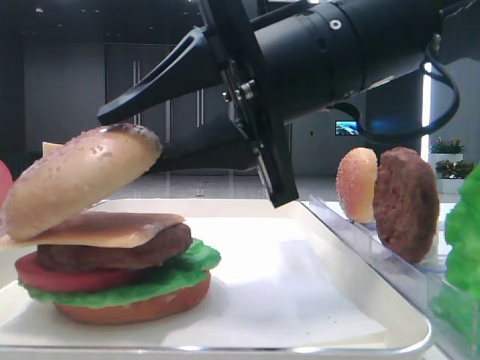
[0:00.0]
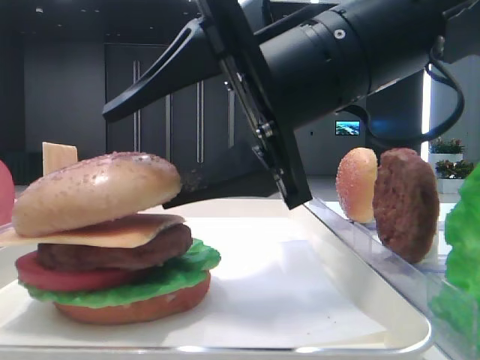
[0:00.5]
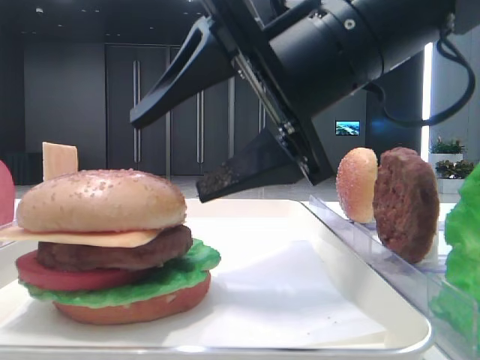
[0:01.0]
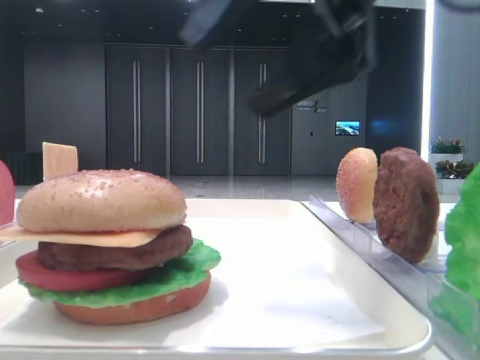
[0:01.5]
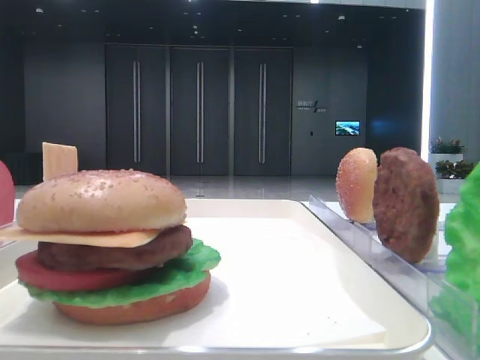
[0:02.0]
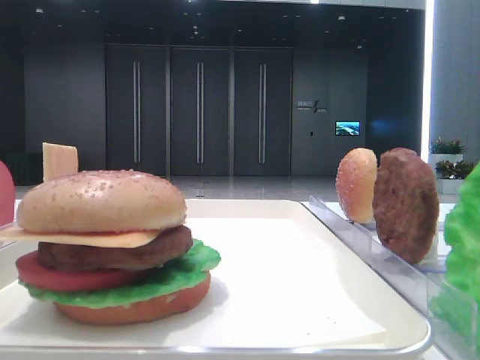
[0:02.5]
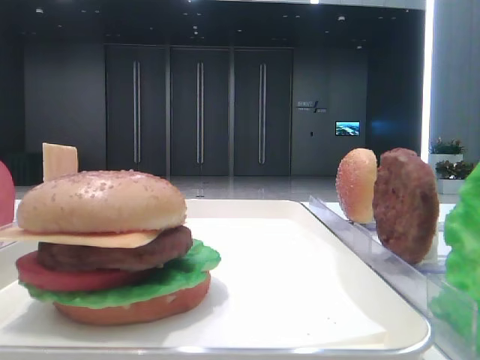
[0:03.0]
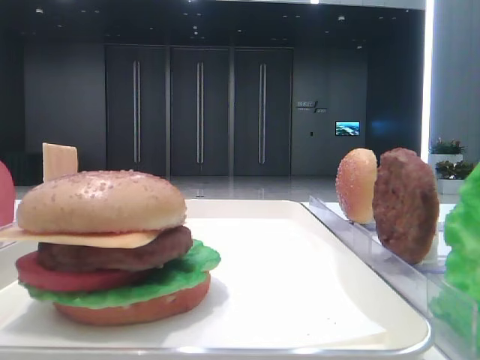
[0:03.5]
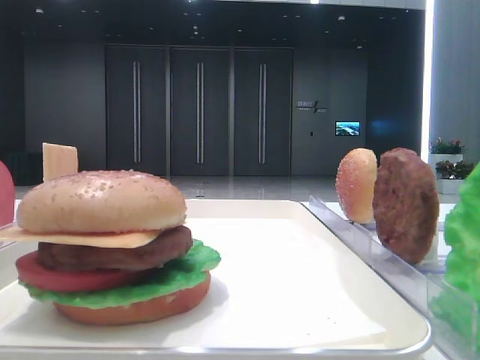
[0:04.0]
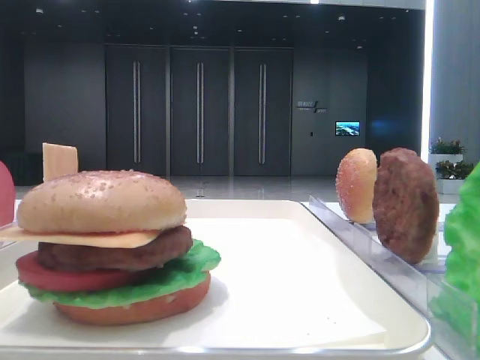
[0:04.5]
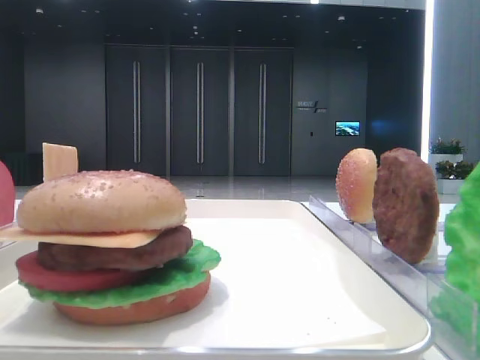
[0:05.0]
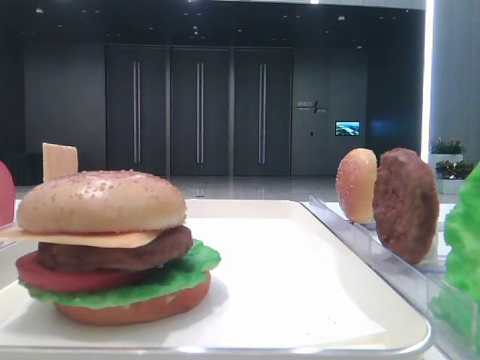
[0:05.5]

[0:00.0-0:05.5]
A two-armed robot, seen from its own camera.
0:00.0 to 0:02.0: The right gripper shifts approximately 25 cm to the right and upward, and opens up.
0:03.5 to 0:05.5: Both grippers stay about where they are.

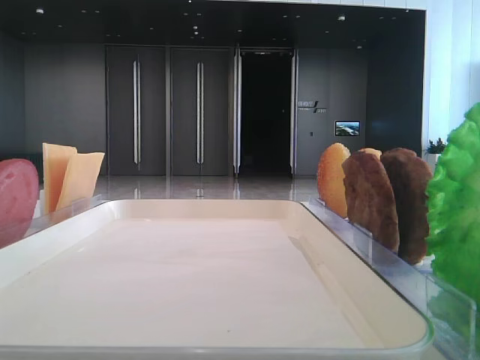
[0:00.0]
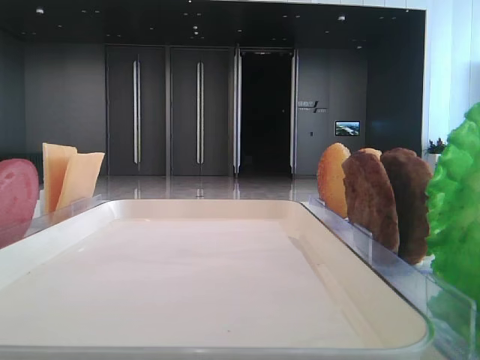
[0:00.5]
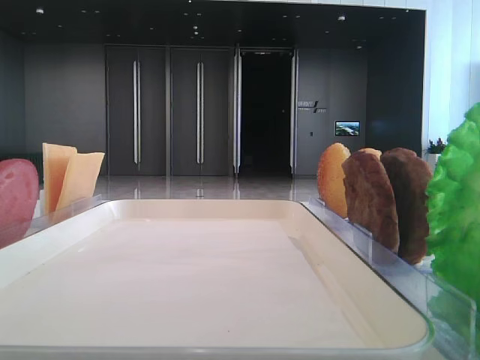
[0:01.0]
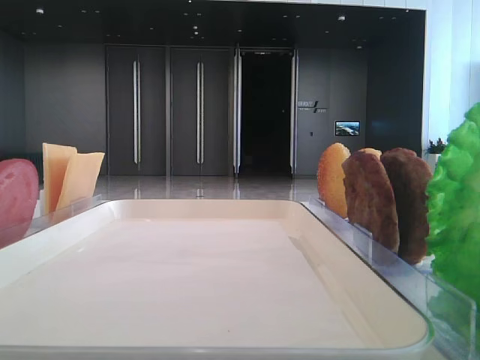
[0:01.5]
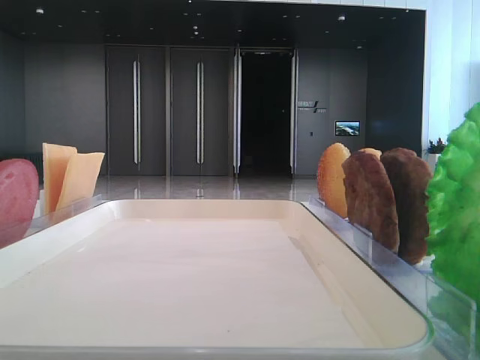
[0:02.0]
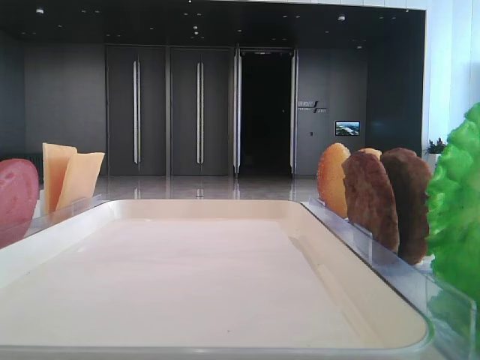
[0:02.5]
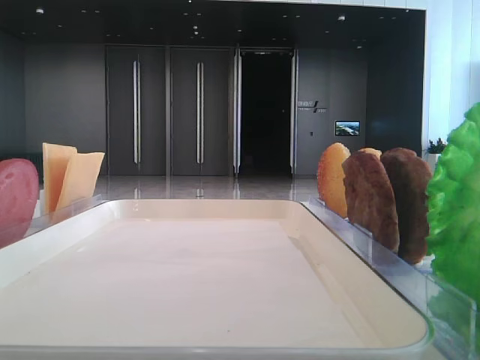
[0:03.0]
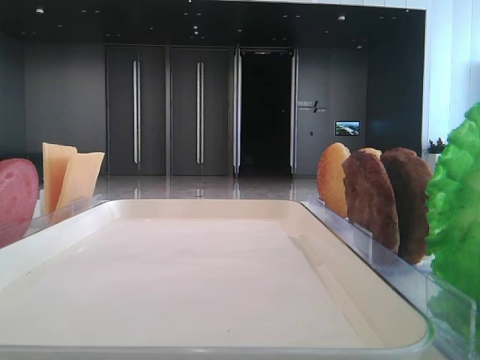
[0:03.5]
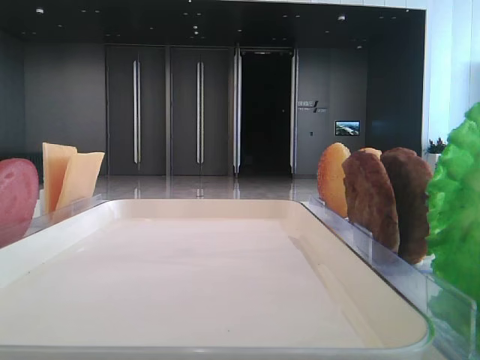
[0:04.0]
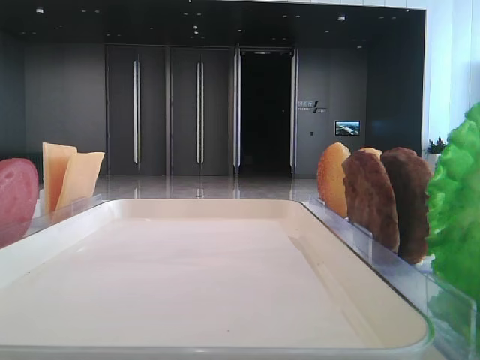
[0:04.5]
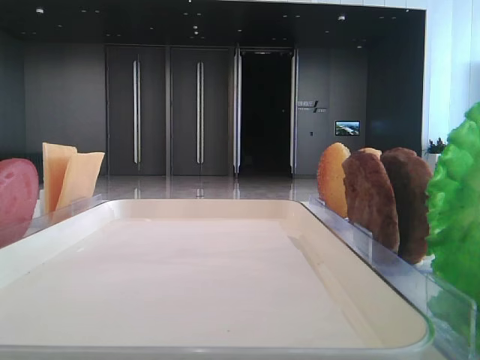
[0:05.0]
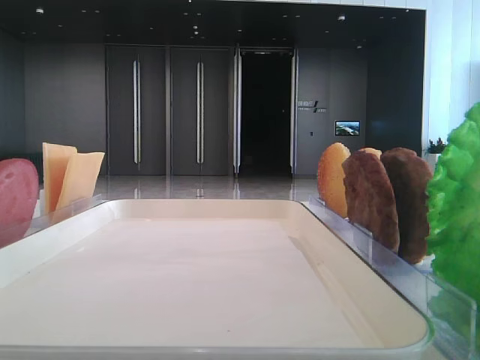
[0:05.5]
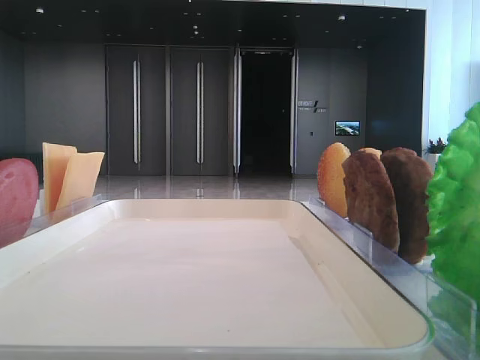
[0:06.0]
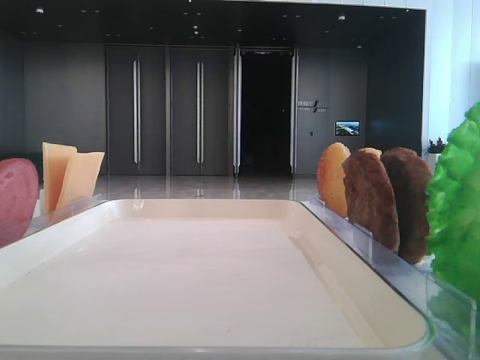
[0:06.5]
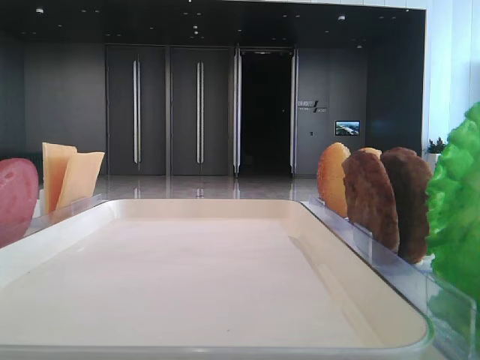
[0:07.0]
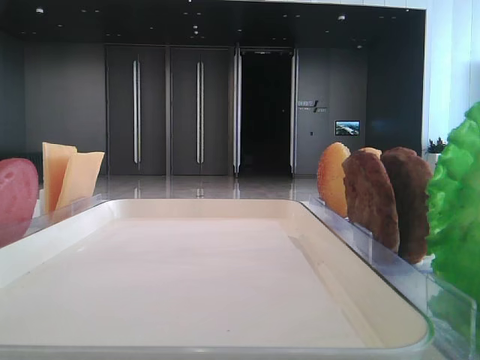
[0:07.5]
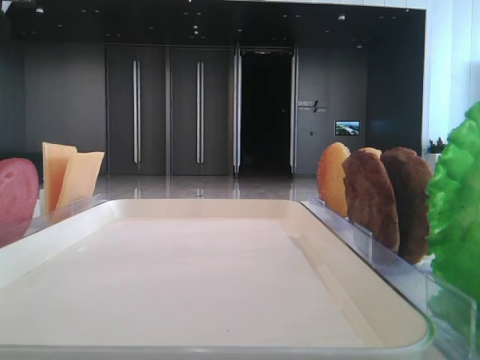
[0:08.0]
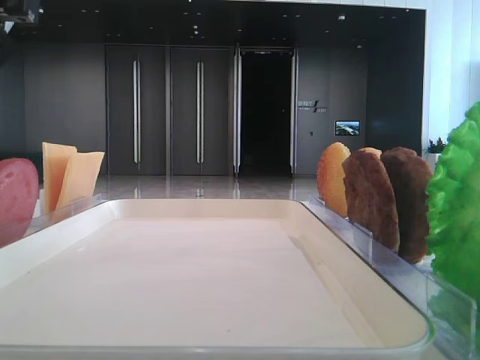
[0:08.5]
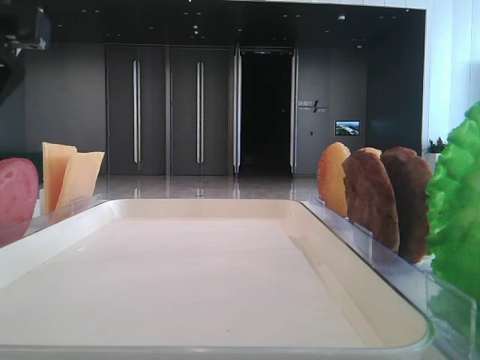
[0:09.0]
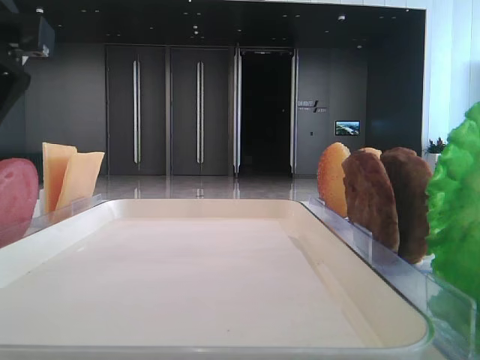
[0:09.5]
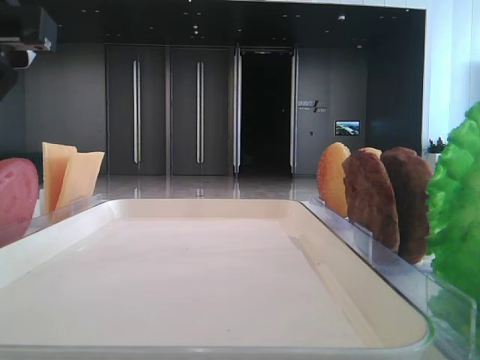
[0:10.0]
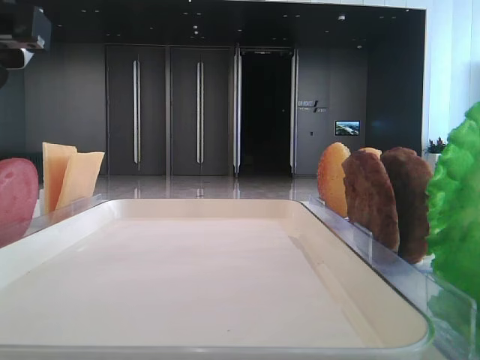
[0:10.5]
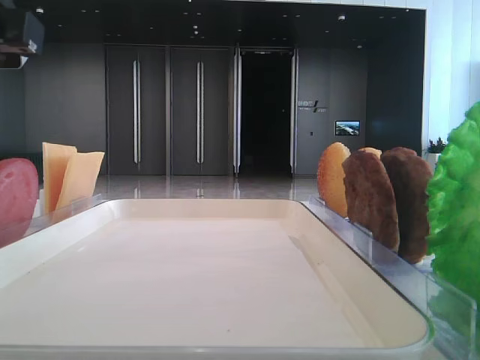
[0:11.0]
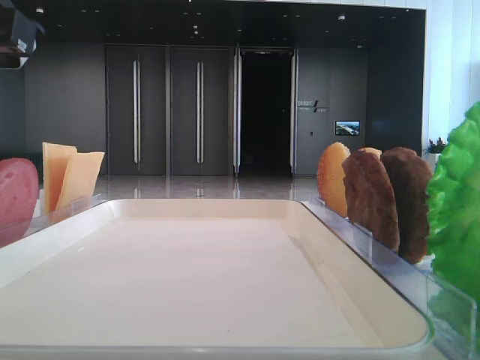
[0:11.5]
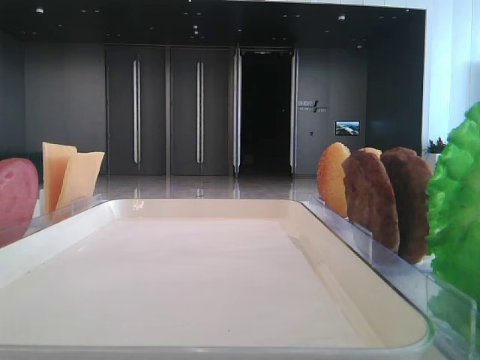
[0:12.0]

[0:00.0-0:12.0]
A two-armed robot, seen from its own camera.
0:08.0 to 0:10.0: The left gripper closes its fingers.
0:10.0 to 0:12.0: The left gripper changes place by some 5 cm, and closes up.

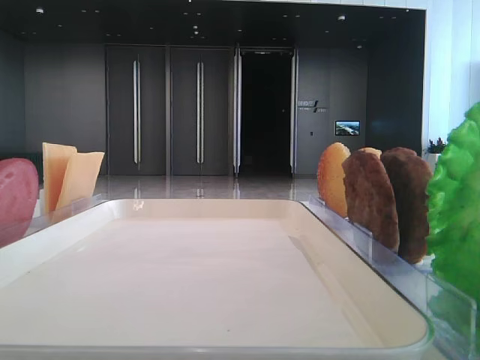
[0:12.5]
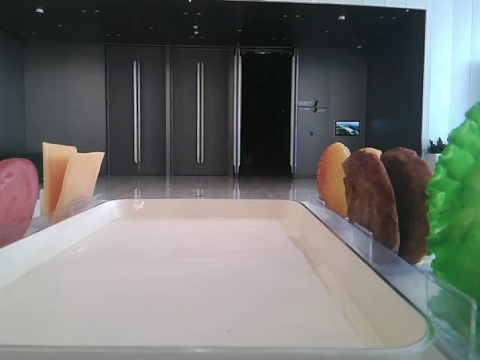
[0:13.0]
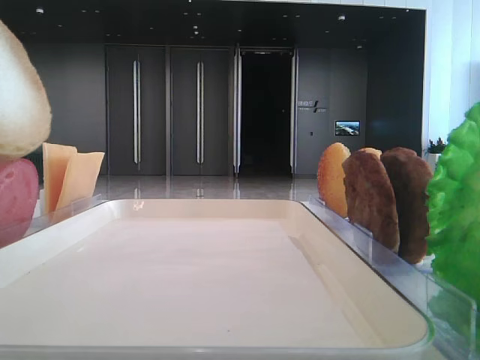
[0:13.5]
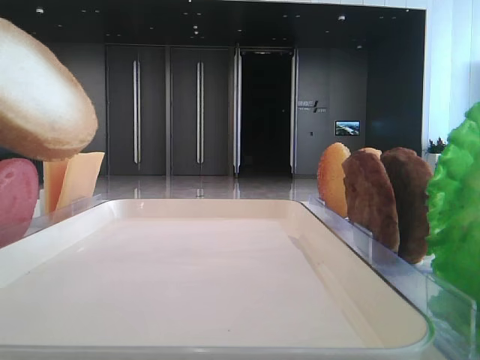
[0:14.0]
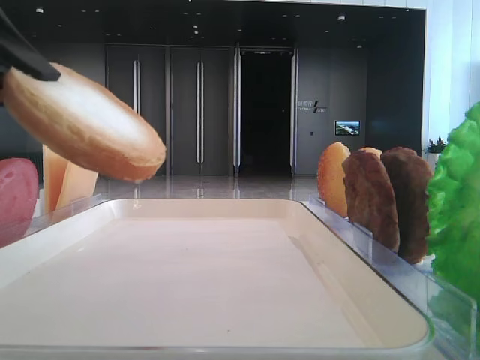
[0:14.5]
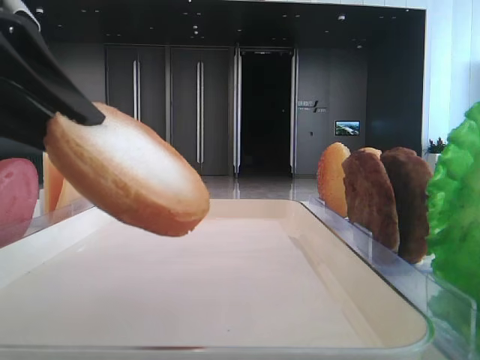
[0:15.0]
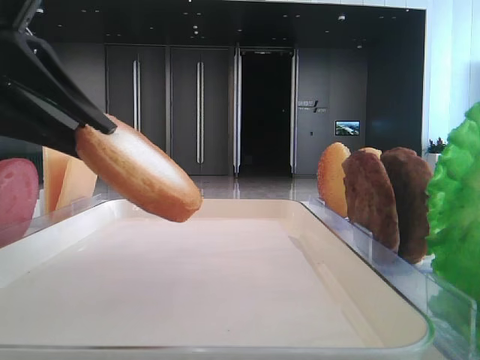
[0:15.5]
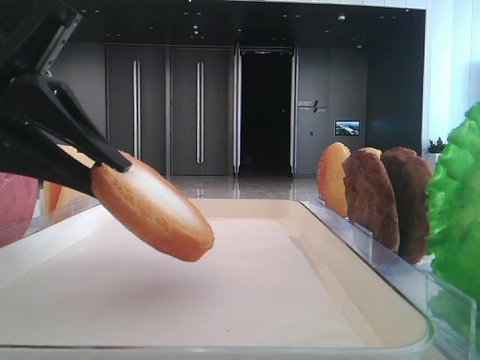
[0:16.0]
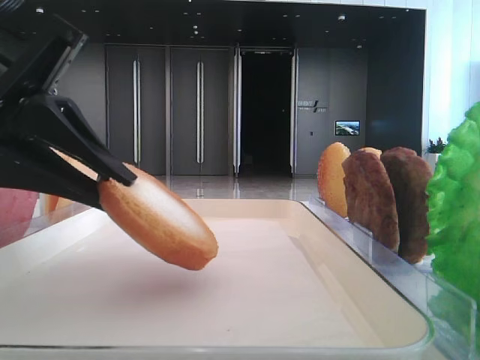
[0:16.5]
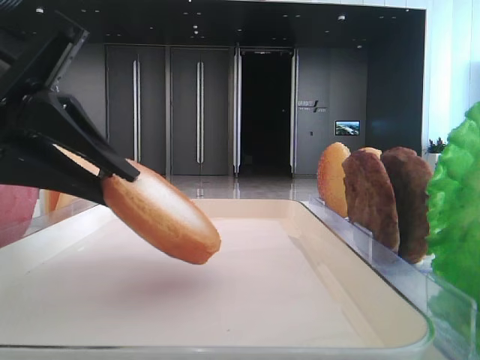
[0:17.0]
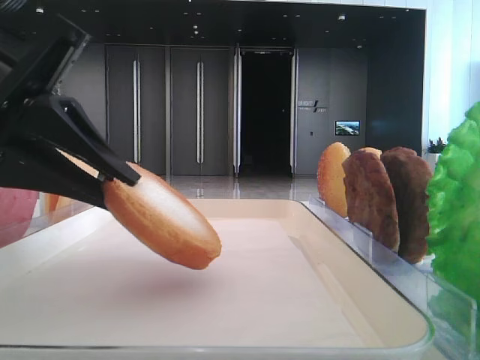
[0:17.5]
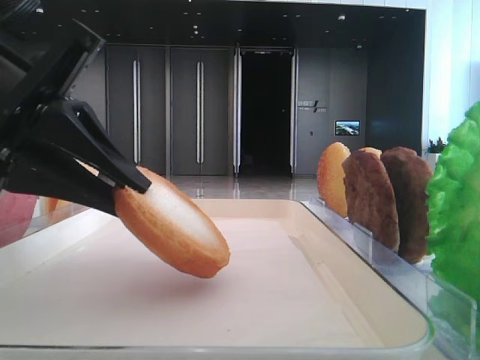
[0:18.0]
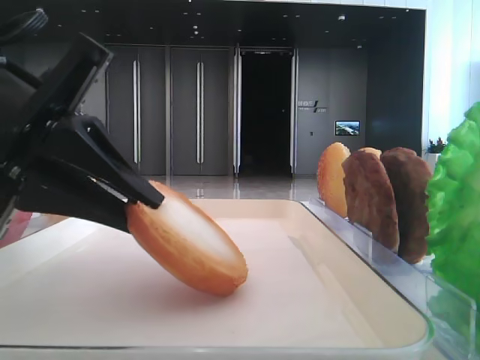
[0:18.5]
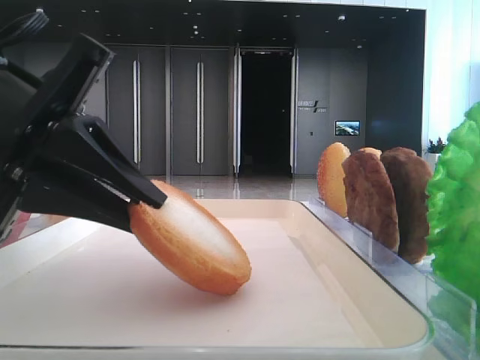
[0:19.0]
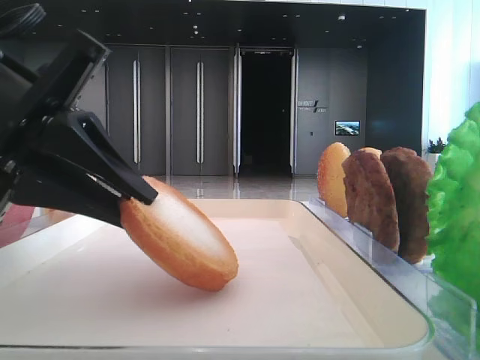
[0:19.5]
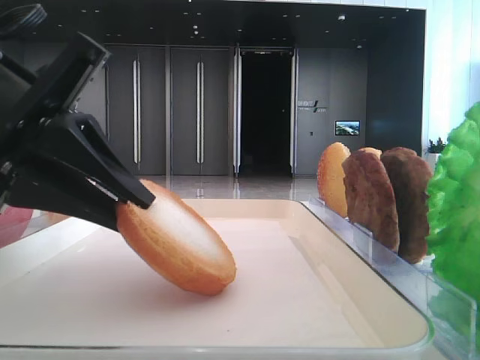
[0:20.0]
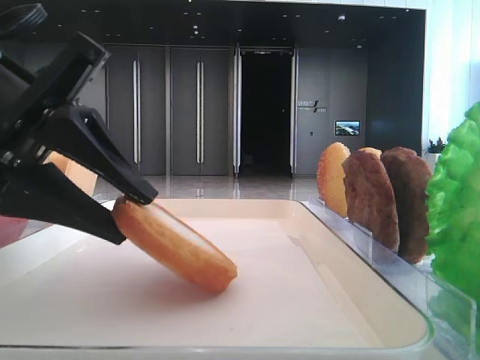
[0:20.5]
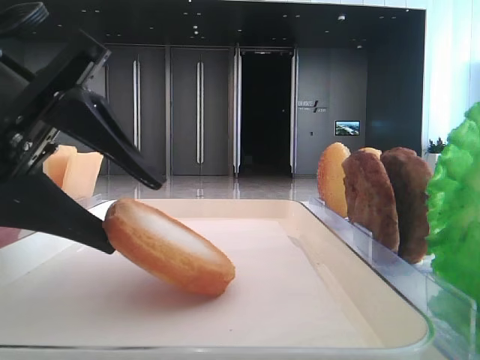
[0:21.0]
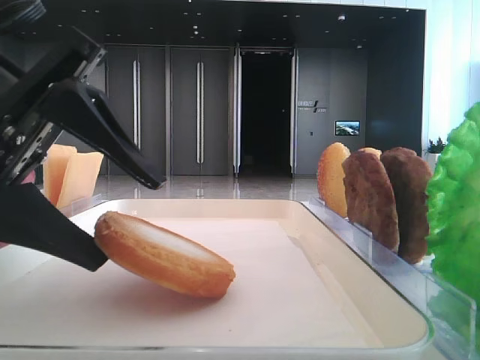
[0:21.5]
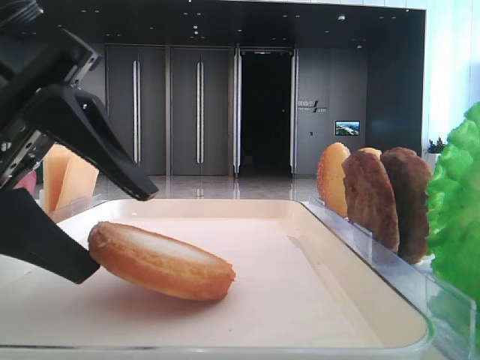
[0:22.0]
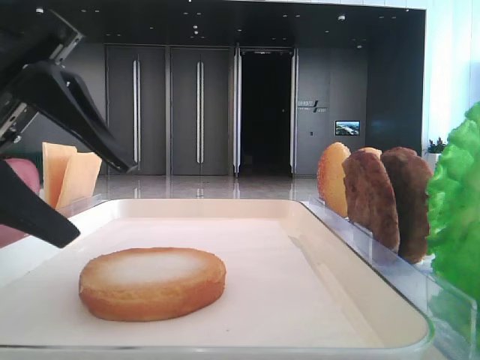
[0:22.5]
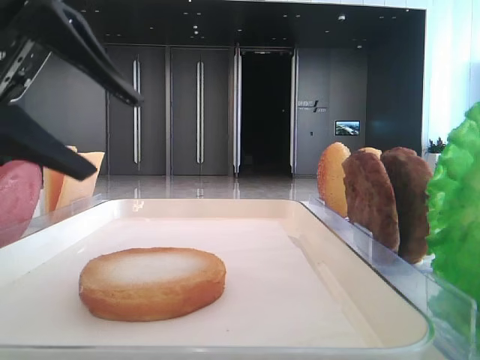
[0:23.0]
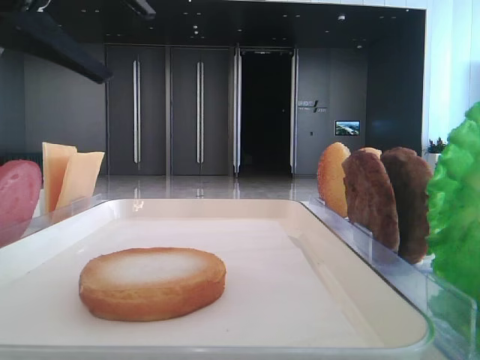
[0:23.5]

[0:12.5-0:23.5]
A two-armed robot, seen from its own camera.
Step, 0:12.5 to 0:22.0: Place the bread on the tray with the left hand.
0:12.5 to 0:14.5: The left gripper is displaced downward by approximately 10 cm.
0:14.5 to 0:16.0: The left gripper moves approximately 5 cm.
0:16.0 to 0:20.0: The grippers move only a little.
0:20.0 to 0:21.5: The left gripper opens its fingers.
0:21.5 to 0:23.5: The left gripper heads upward, covering approximately 10 cm.
